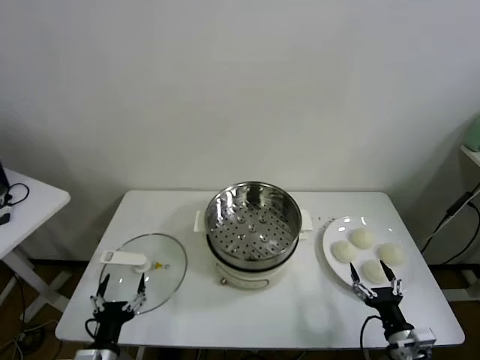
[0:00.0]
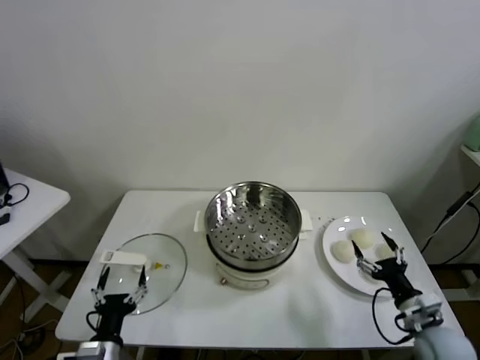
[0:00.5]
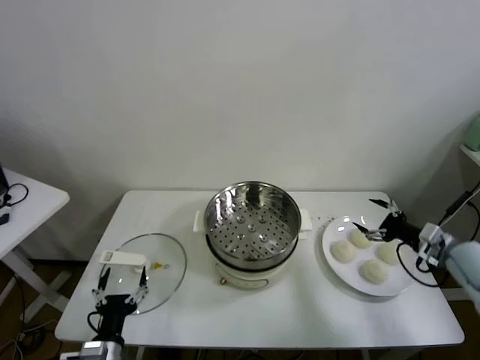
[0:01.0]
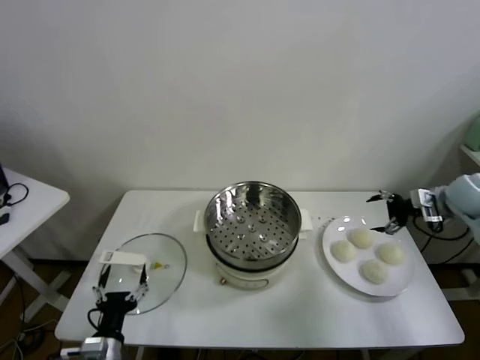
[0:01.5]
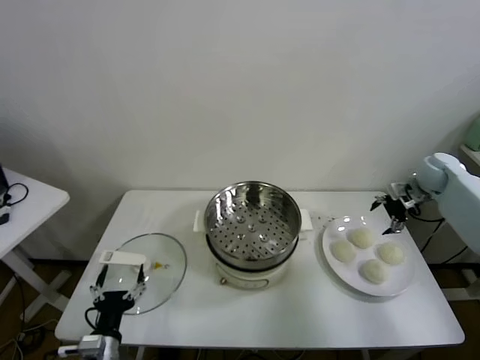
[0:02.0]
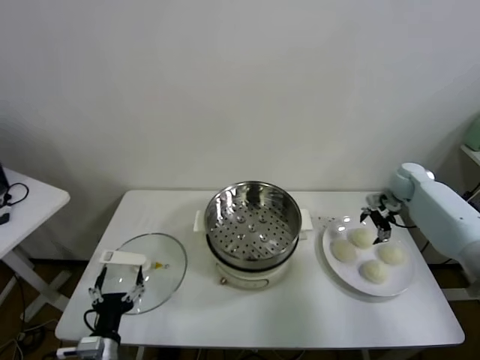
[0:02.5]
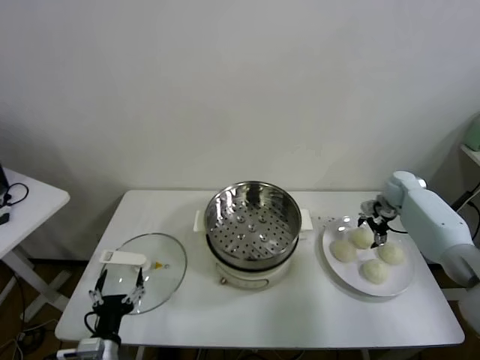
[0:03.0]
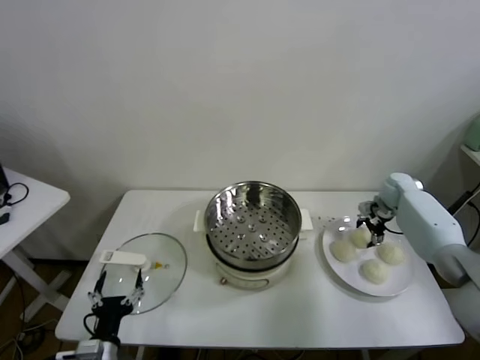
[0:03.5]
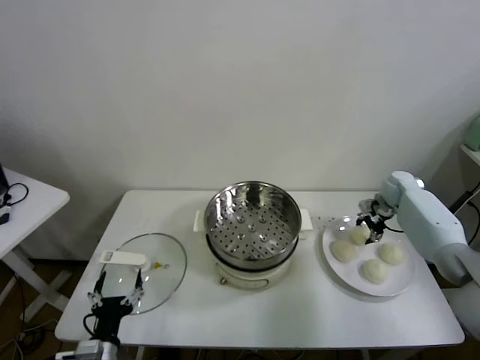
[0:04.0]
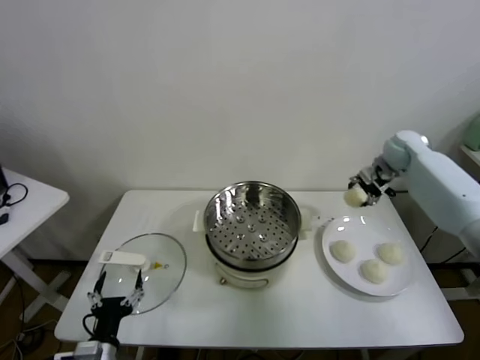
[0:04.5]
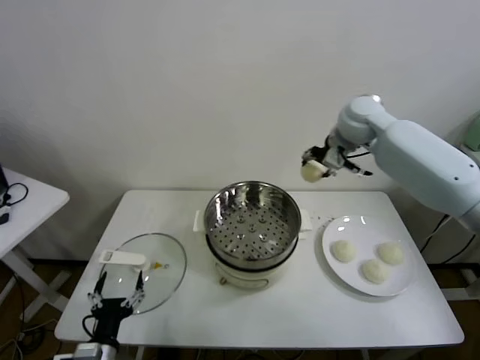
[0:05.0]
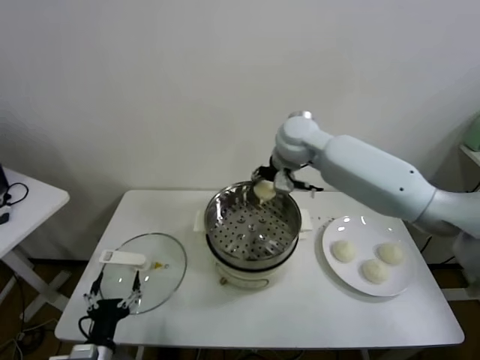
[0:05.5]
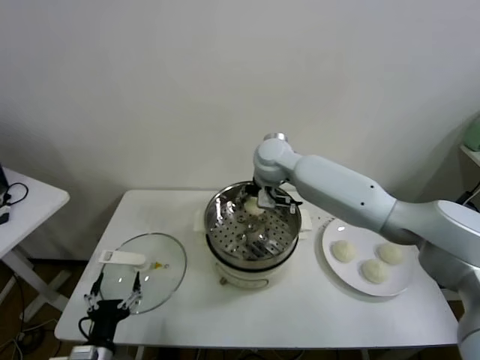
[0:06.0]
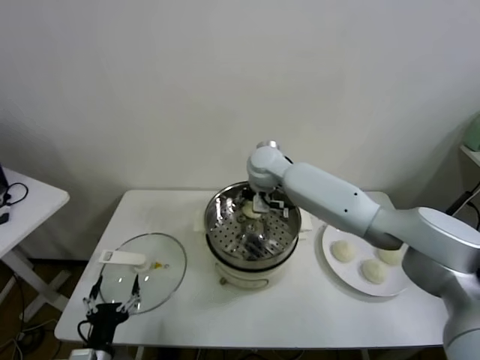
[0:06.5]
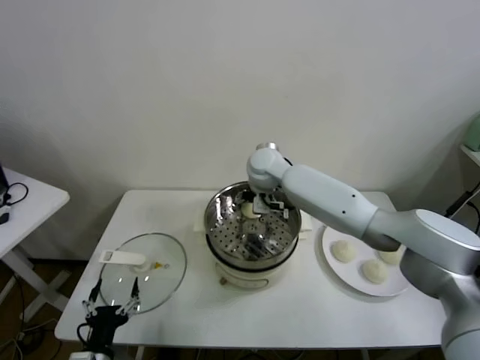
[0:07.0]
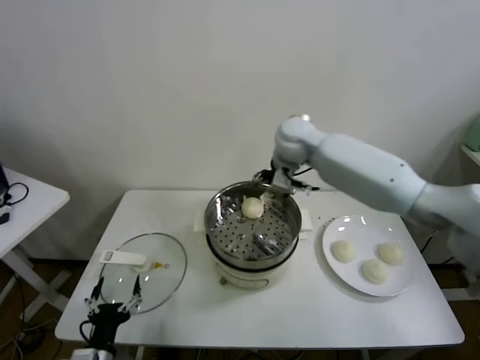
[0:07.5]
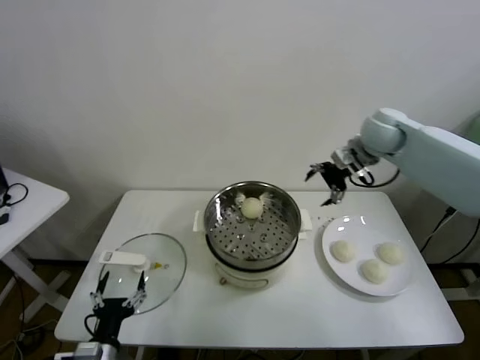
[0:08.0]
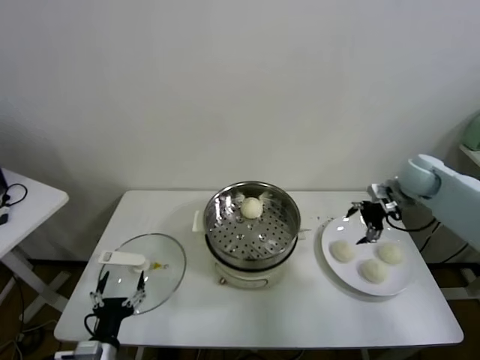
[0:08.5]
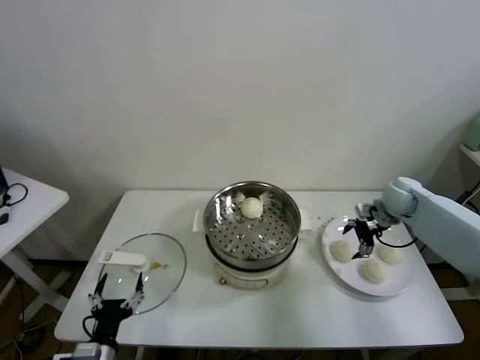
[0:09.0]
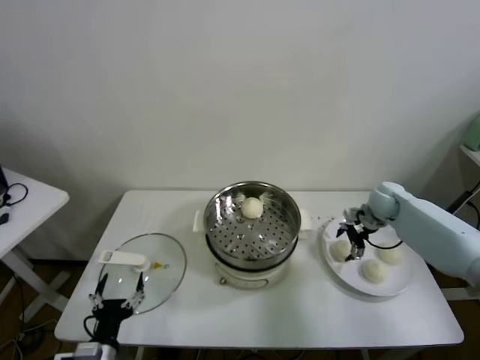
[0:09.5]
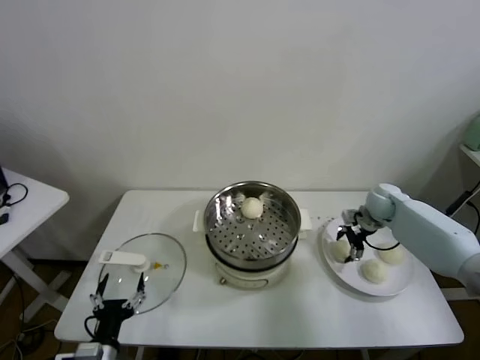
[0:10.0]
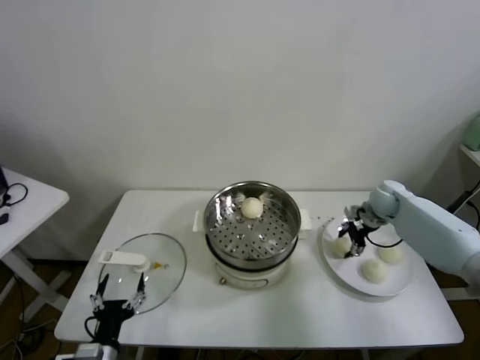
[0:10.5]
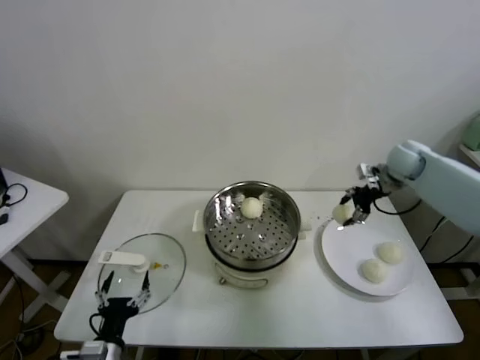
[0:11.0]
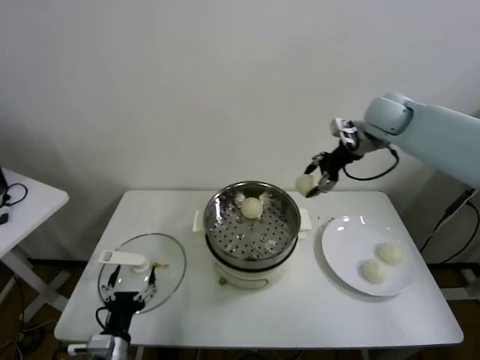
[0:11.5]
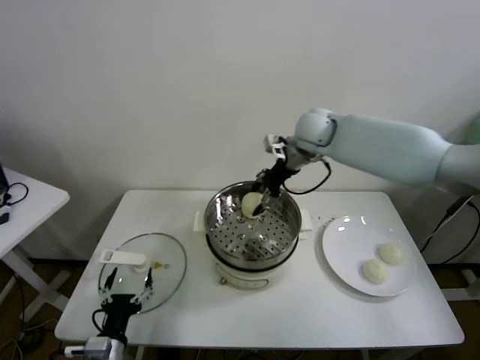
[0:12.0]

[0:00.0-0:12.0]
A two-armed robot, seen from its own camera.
Task of the whole recording: take steamed baozi put them in steamer.
Step, 0.0 to 3.5 s: Grasp the baozi in the plate with right gripper.
Step, 4.0 to 6.5 s: Place the baozi on the steamer with right gripper.
Step, 7.0 to 10.0 s: Grasp the baozi in the plate with right gripper.
2.0 to 4.0 s: The right gripper travels downward by roughly 5 cm, and closes.
4.0 to 6.0 s: The right gripper goes about 35 cm to the left.
6.0 to 8.0 s: The right gripper travels to the right by about 25 cm, and opens its fingers.
8.0 to 10.0 s: The right gripper goes roughly 20 cm downward.
10.0 to 12.0 s: The right gripper shifts some 30 cm to the left and upward, and closes.

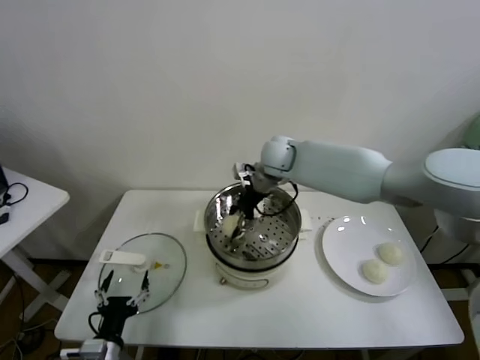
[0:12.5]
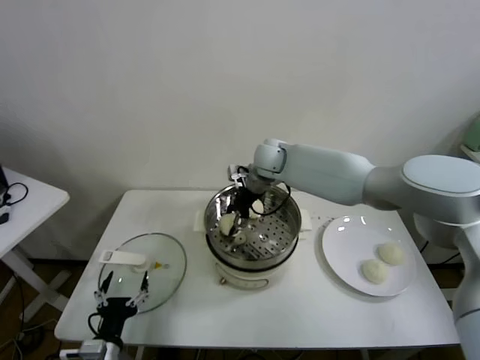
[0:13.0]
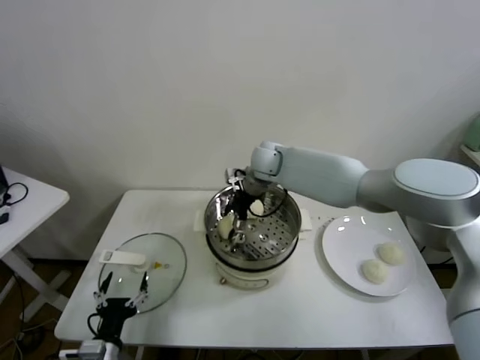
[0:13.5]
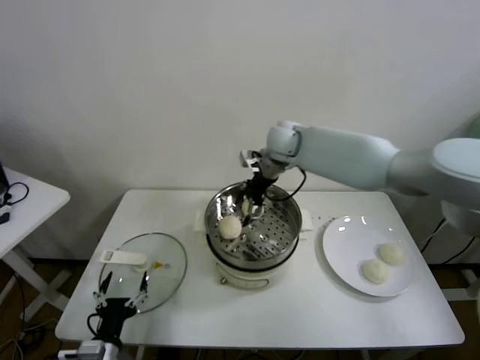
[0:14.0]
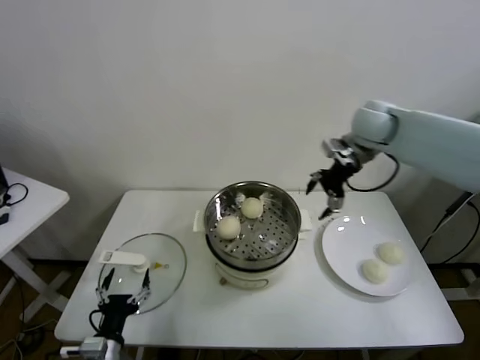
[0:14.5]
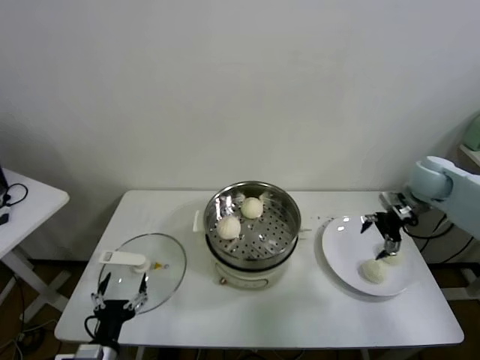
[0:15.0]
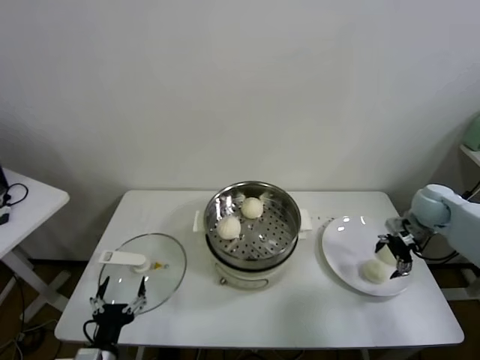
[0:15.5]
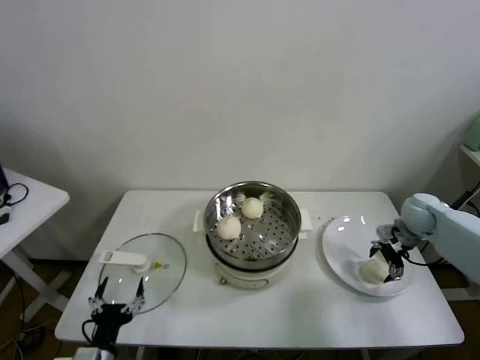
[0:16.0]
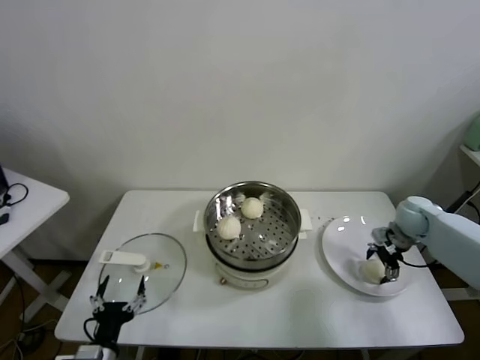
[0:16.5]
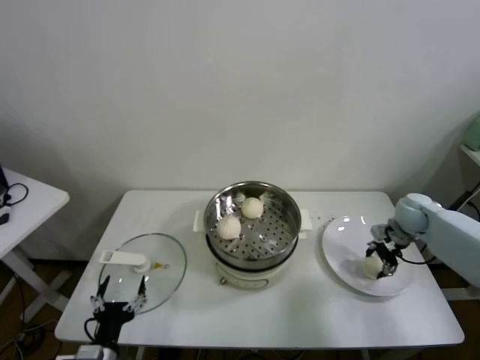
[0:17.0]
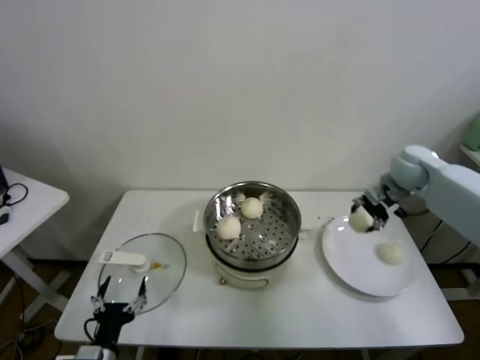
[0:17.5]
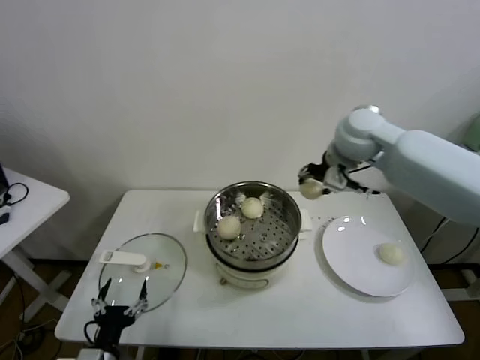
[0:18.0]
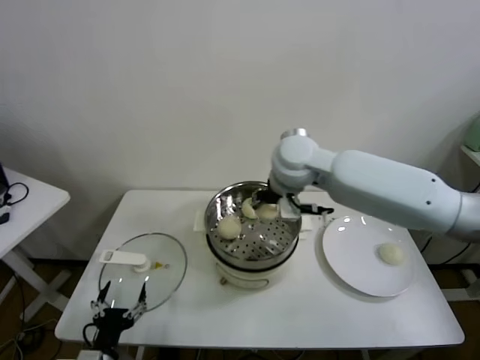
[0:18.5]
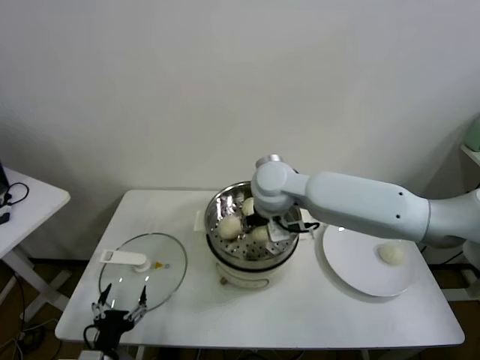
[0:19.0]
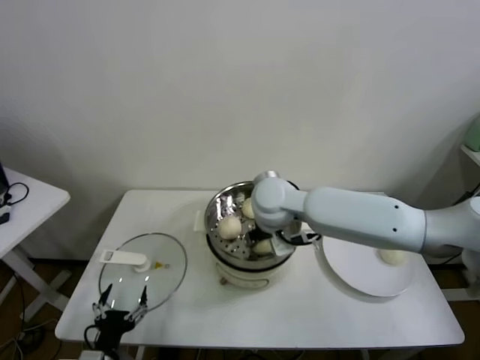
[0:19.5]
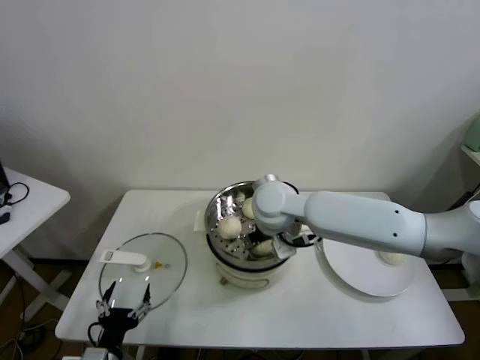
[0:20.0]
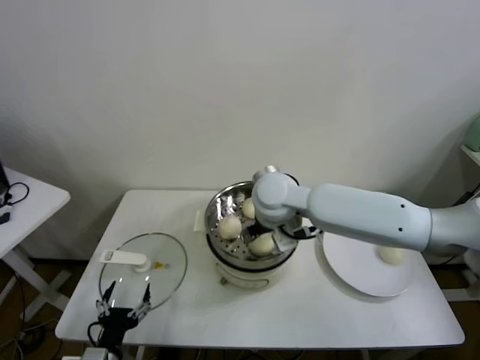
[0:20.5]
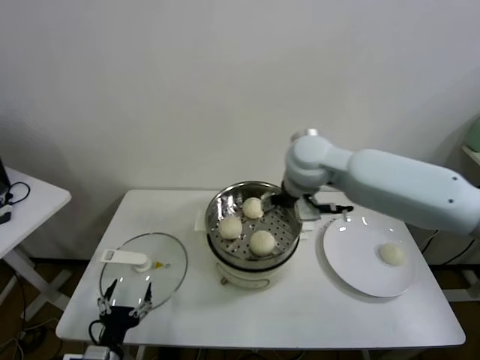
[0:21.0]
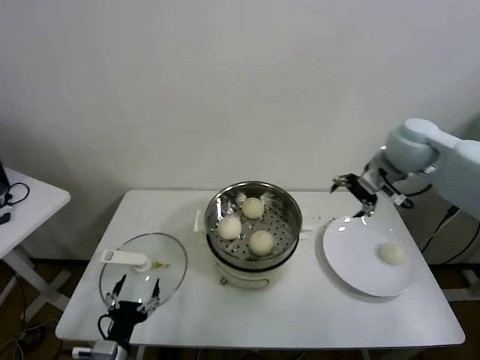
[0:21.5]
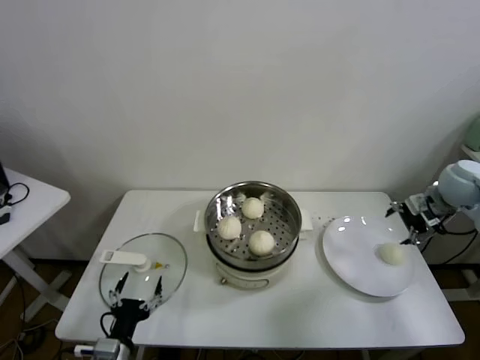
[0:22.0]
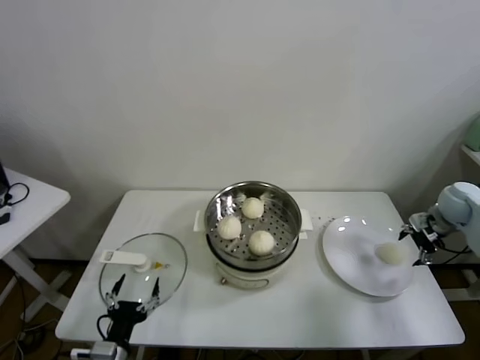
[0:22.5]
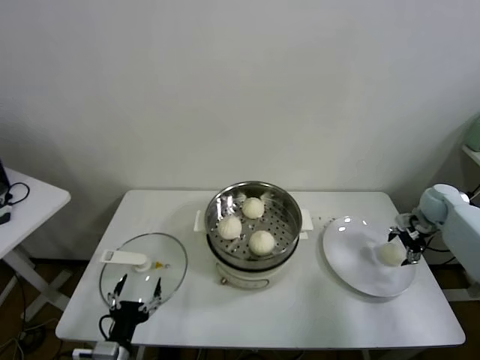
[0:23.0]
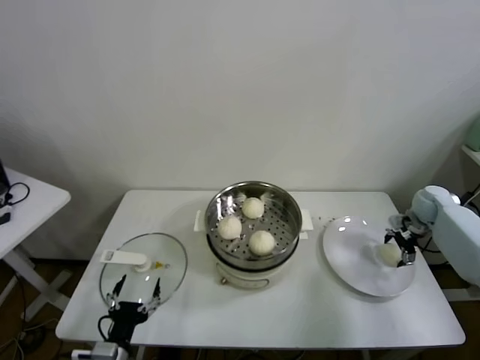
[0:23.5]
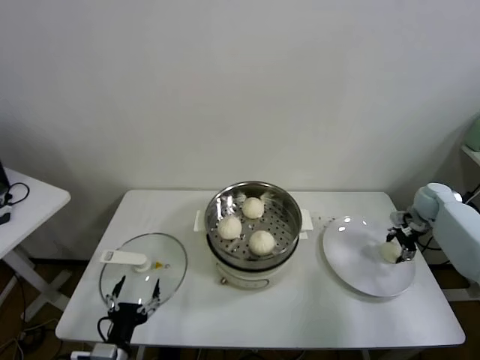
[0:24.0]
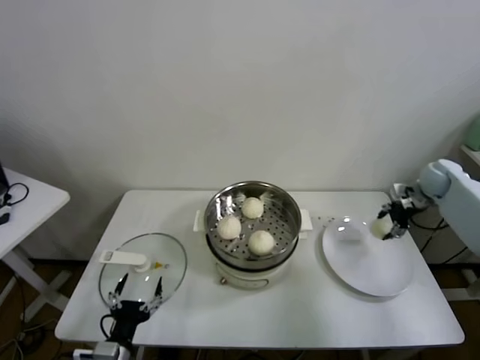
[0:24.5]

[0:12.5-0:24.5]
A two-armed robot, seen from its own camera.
Task of the whole recording: take steamed baozi put them in steamer.
Step, 14.0 to 16.5 s: Grasp the baozi in the plate with right gripper.
Step, 17.0 to 20.0 s: Place the baozi on the steamer with right gripper.
Step, 20.5 to 23.5 s: Grasp the baozi in the plate with right gripper.
12.5 to 14.5 s: The right gripper is displaced to the right and upward by roughly 25 cm, and opens.
14.5 to 16.5 s: The right gripper is displaced downward and to the right by approximately 25 cm.
16.5 to 18.5 s: The right gripper moves to the left and upward, about 40 cm, and closes.
18.5 to 20.5 s: The right gripper heads downward, covering some 5 cm, and opens.
20.5 to 22.5 s: The right gripper shifts approximately 50 cm to the right.
22.5 to 24.5 s: The right gripper travels forward by roughly 5 cm, and closes its fingers.

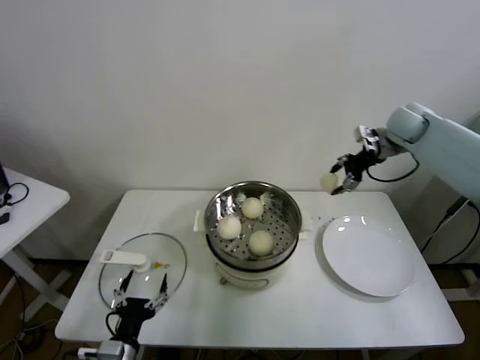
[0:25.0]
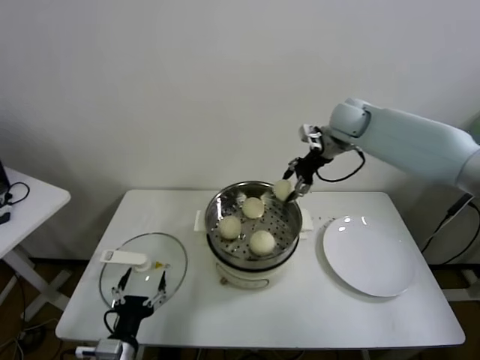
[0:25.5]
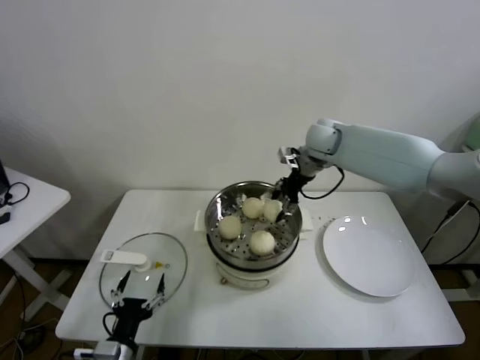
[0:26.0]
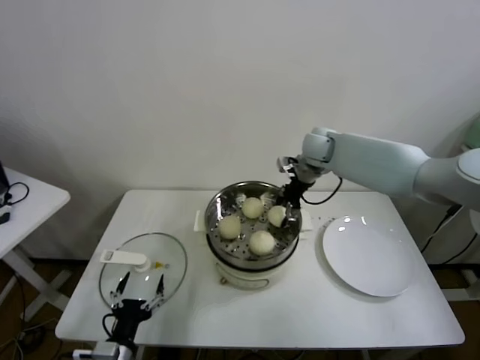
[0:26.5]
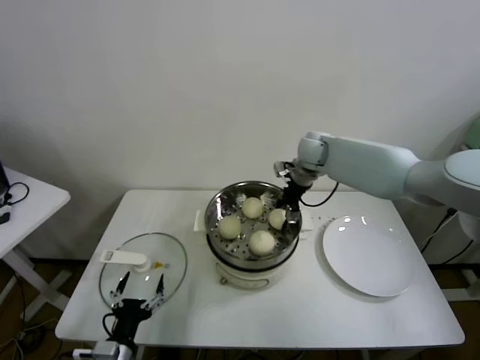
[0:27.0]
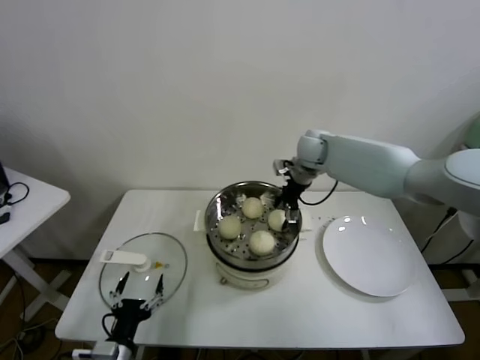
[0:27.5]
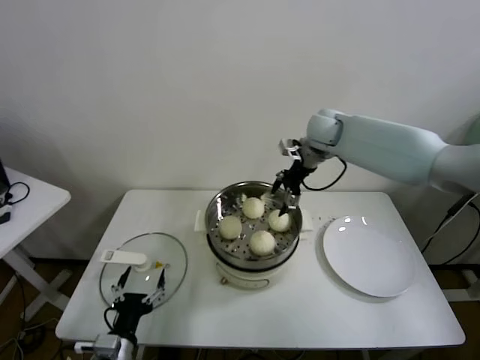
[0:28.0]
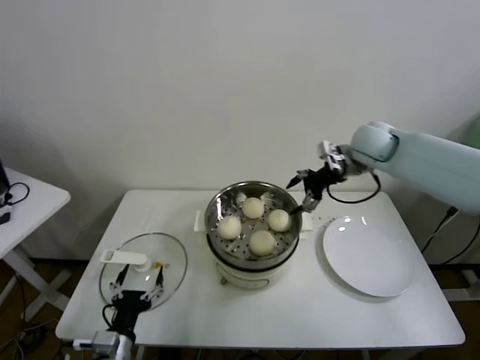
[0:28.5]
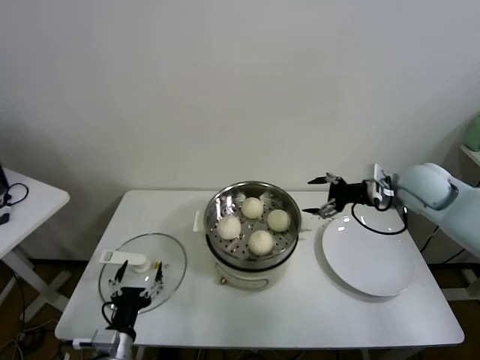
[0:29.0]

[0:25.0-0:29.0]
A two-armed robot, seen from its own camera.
Task of the whole recording: take steamed baozi put them in steamer.
Step, 25.0 to 27.5 s: Place the baozi on the steamer with right gripper.
25.0 to 27.0 s: The right gripper shifts roughly 20 cm to the left.
27.0 to 29.0 s: The right gripper shifts roughly 25 cm to the right and backward, and opens its fingers.
